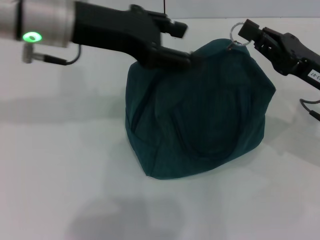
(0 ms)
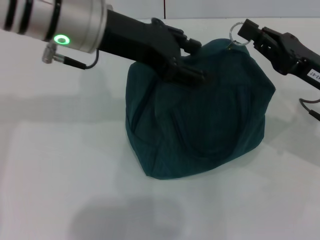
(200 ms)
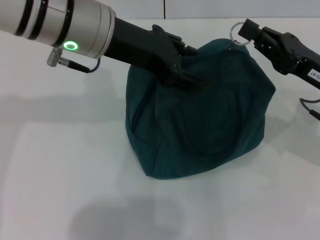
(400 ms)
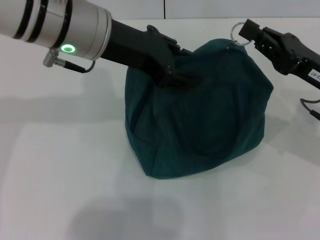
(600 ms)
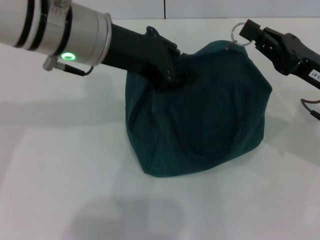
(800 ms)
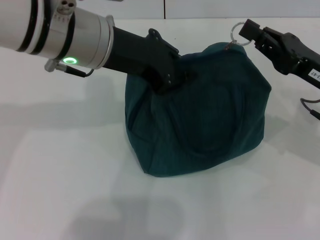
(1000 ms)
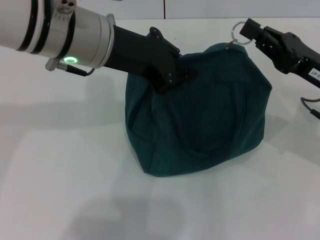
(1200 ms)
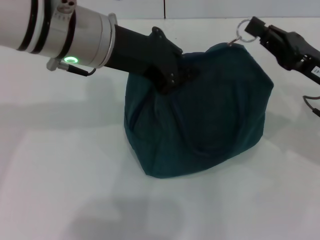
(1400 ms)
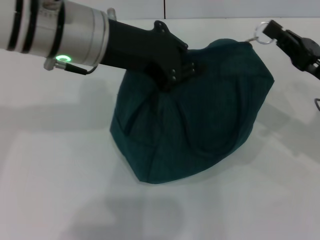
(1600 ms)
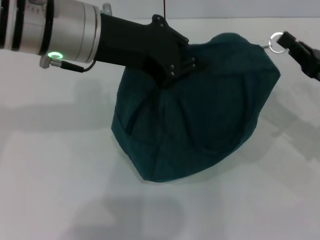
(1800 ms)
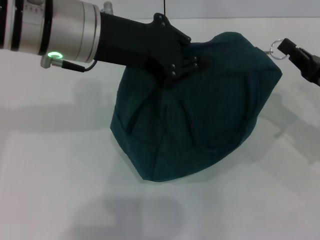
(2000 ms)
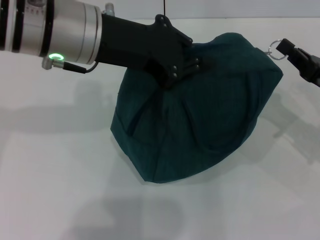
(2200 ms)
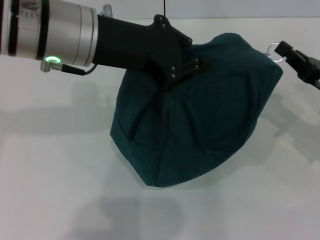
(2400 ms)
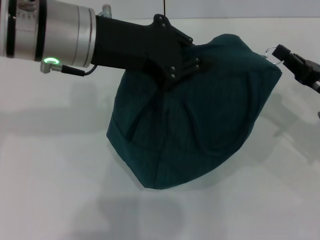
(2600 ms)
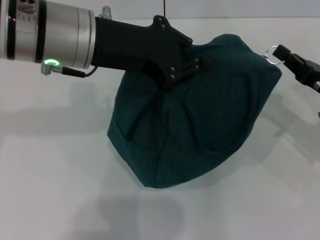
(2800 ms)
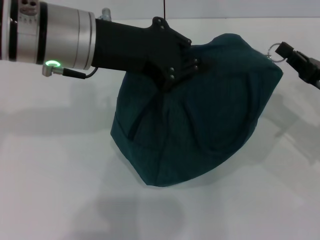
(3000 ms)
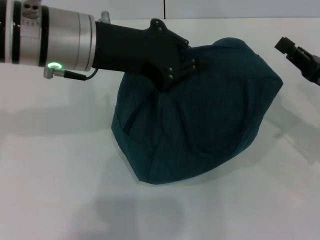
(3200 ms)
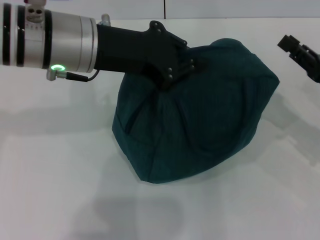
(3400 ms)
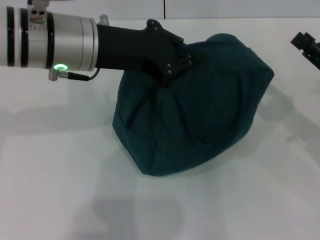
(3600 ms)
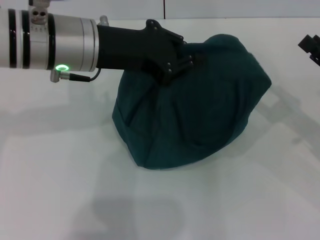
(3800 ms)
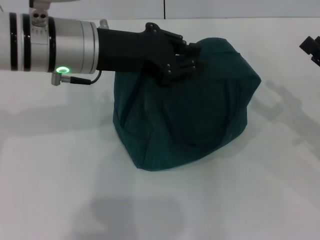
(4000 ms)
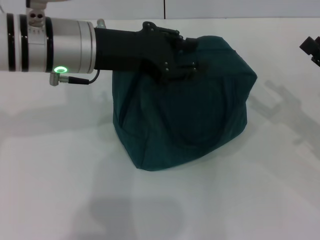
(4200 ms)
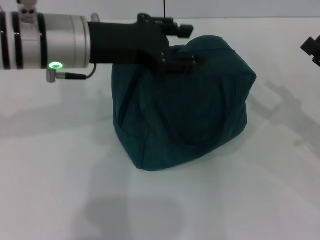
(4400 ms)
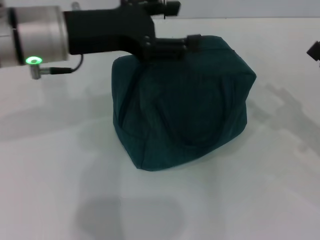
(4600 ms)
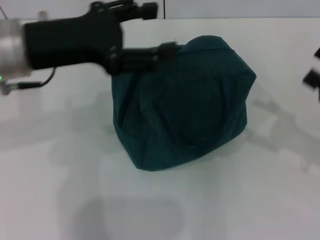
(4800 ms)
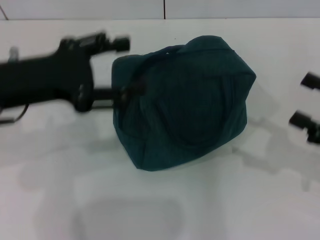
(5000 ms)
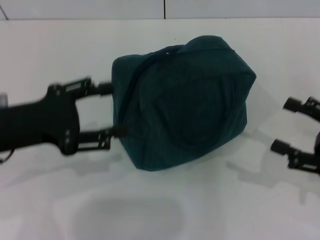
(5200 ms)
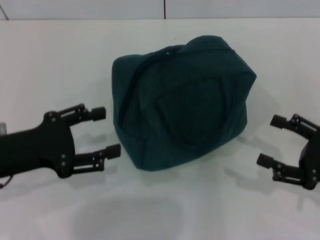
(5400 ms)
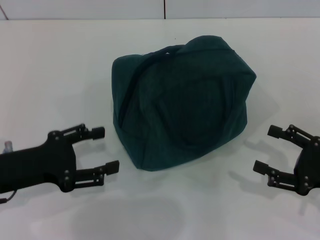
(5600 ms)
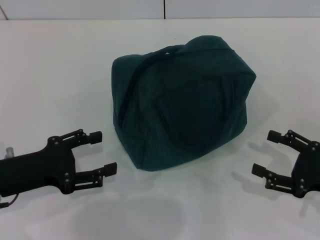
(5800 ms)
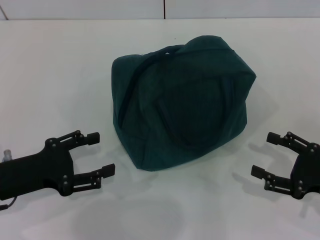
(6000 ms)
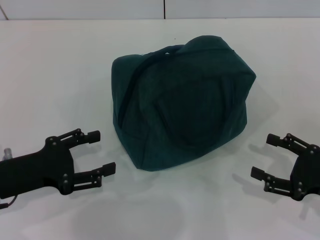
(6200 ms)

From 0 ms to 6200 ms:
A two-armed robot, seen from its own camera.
Step, from 0 ms to 3000 ms: Zip up the lunch bag with your right hand.
Step, from 3200 ms to 4600 ms: Hold the lunch bag with your left hand.
From 0 ms to 1600 ms: The left gripper closes.
From 1600 ms to 3200 ms: The grippers move only a little.
From 3200 ms to 4600 ms: The left gripper opens its fingers. The right gripper moves about 5 cm, and opens its fingers.
From 4600 ms to 6200 ms: The left gripper is displaced downward, backward and to the left by about 20 cm, while the right gripper shifts approximately 10 cm downward and backward.

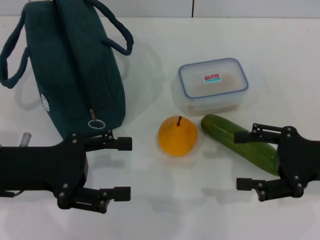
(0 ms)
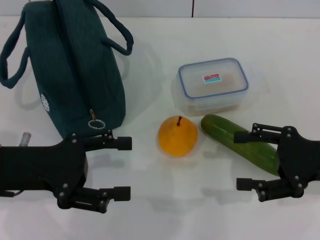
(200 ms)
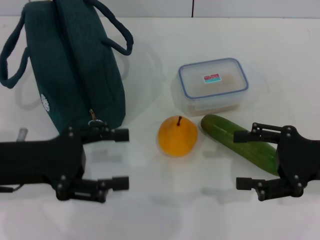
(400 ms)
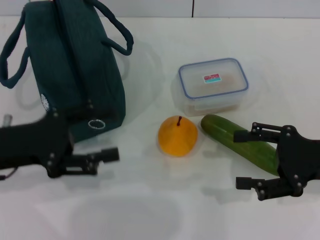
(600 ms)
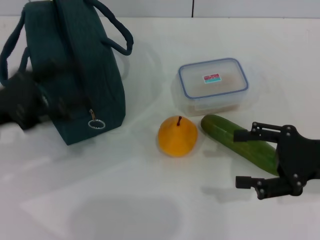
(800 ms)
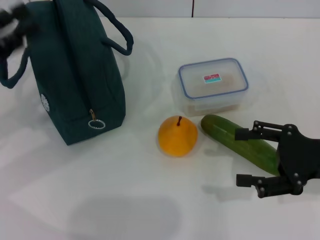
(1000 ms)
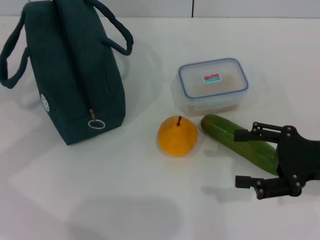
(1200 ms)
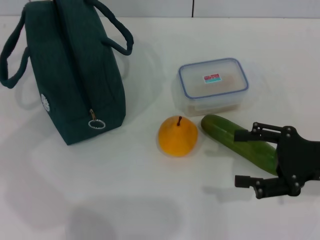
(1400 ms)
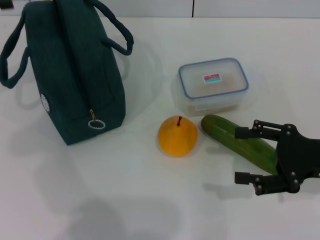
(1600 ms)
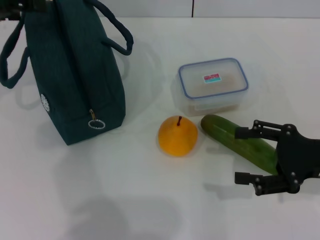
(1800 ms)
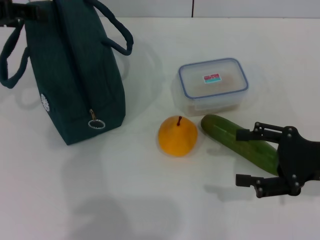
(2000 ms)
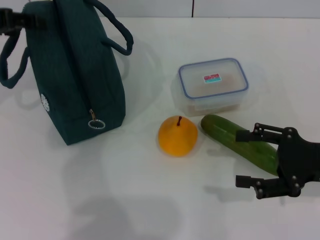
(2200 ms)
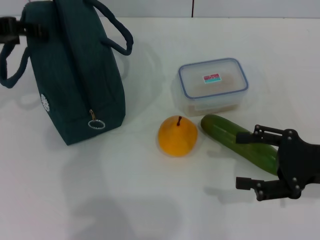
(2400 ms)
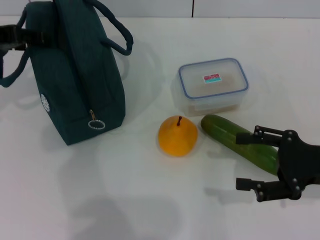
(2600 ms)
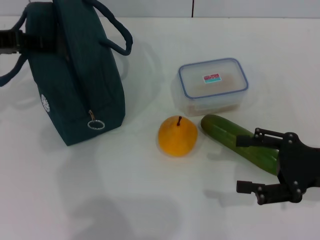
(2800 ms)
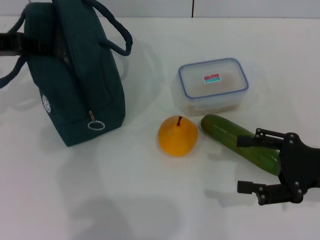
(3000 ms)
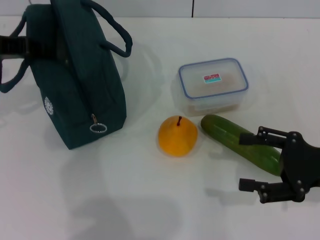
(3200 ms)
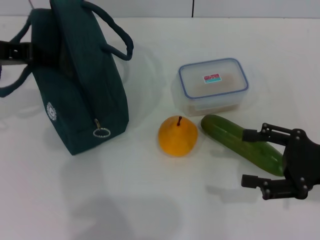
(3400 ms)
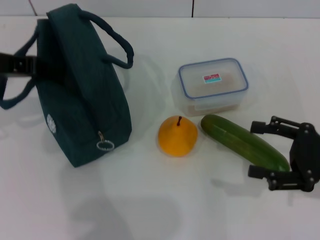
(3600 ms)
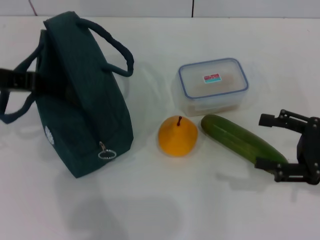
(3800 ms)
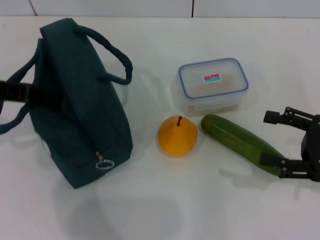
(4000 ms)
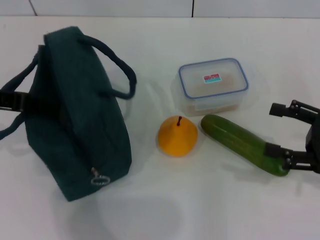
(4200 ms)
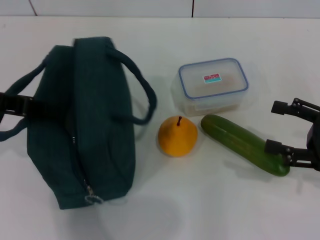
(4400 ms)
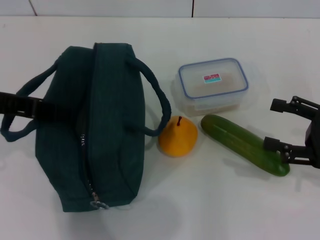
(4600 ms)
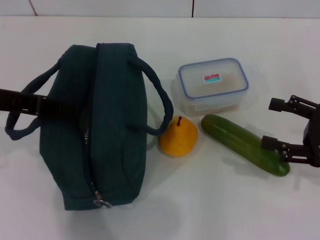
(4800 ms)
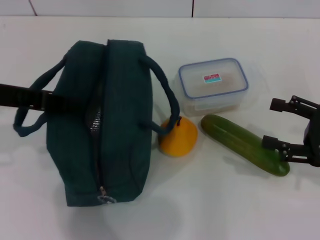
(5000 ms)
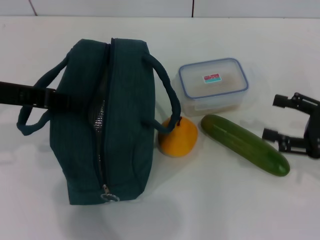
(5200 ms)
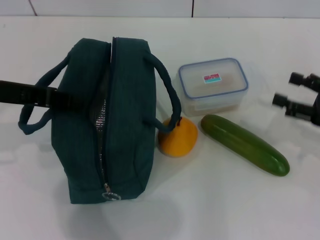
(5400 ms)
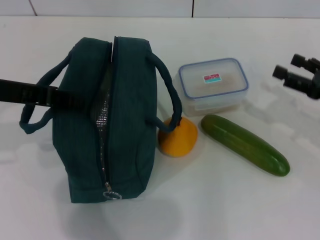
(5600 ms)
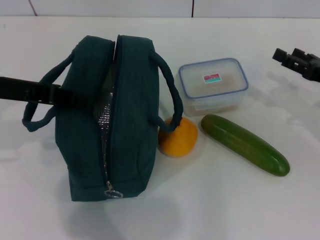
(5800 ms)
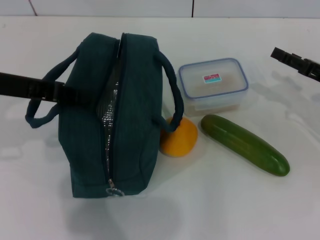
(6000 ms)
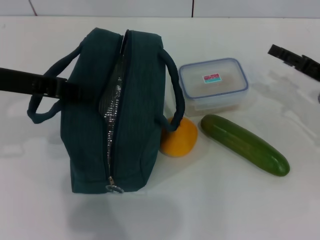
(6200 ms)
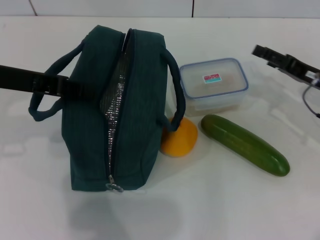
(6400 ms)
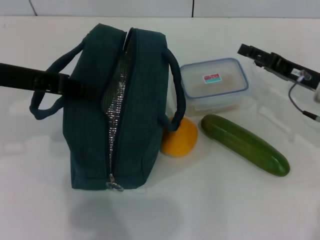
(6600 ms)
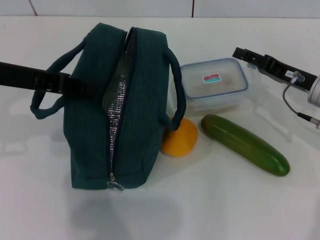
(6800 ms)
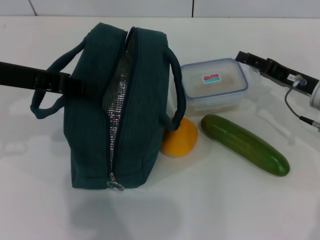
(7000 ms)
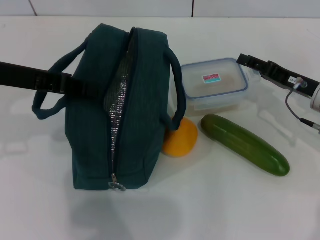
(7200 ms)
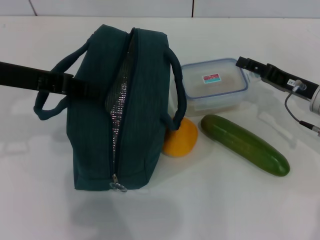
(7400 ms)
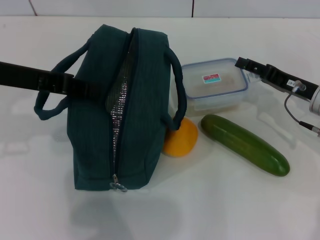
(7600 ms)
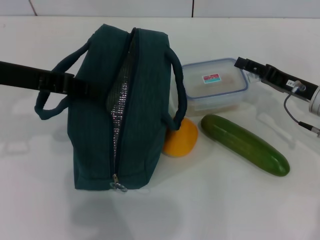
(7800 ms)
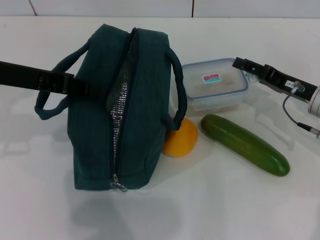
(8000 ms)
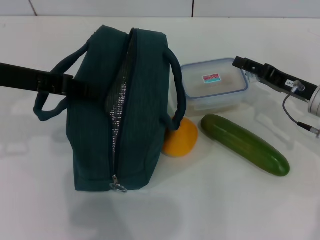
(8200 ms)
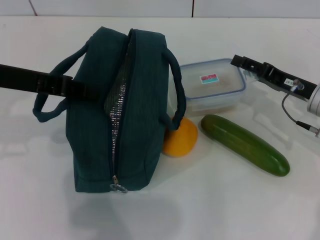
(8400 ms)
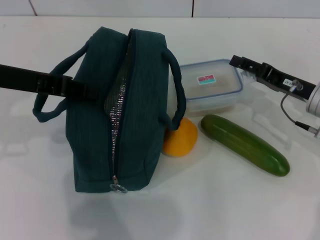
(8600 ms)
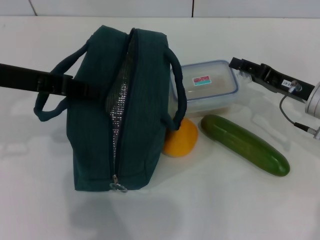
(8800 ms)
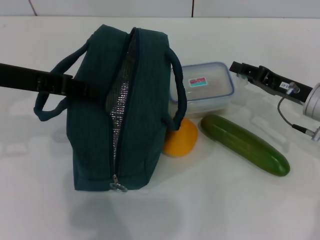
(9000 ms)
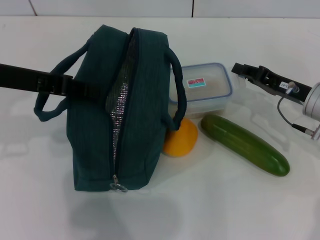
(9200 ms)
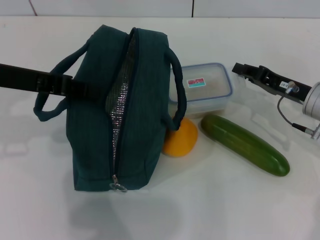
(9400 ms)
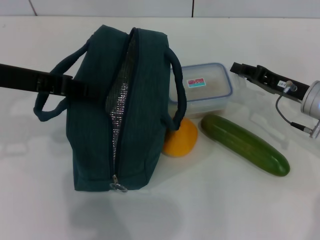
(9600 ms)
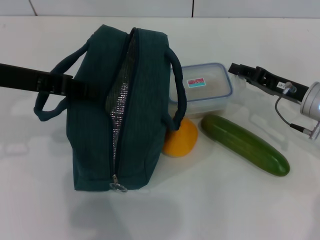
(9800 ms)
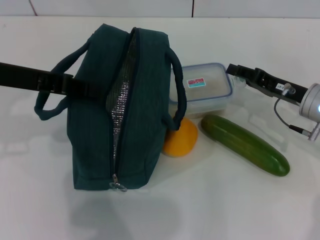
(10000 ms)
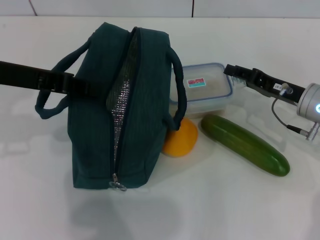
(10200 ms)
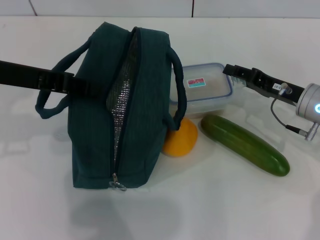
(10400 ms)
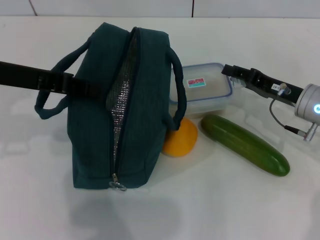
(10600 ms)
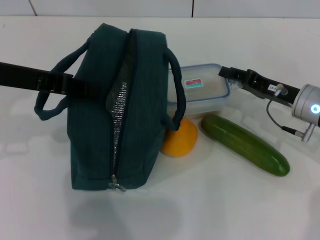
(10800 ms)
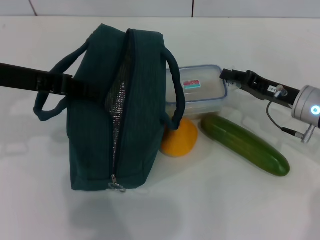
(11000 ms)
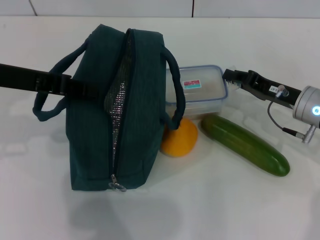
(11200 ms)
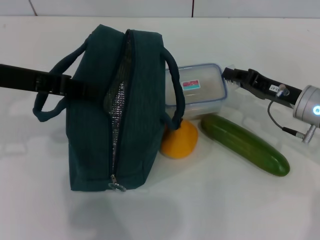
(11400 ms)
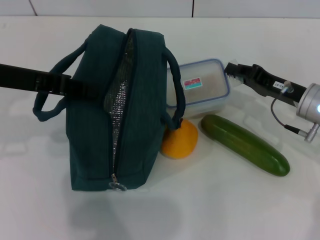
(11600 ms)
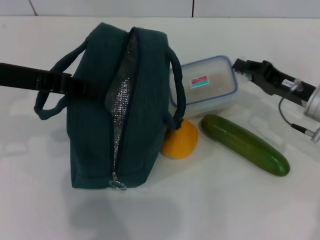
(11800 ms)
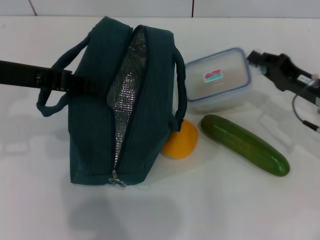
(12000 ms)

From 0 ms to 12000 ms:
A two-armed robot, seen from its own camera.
Step, from 0 ms to 6600 ms: Hold the lunch bag with your left hand.
Step, from 6800 ms to 11400 ms: Pick up the lunch box with your right hand.
From 0 ms to 1600 ms: The left gripper goes roughly 20 cm upward, forward and to the left.
From 1600 ms to 3000 ms: The left gripper closes.
From 3000 ms to 4400 ms: The left gripper shifts some 5 cm backward, and closes up.
From 4400 ms to 6000 ms: The right gripper goes approximately 10 cm forward.
From 6000 ms to 7600 ms: The right gripper heads to the left, covering some 5 cm.
From 7600 ms to 9000 ms: Neither gripper changes place.
From 9000 ms to 10400 ms: The two grippers keep their place.
From 10400 ms to 12000 ms: The right gripper closes up.

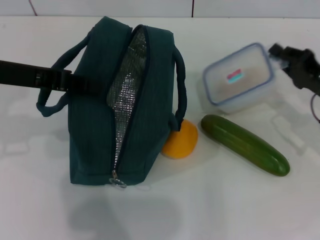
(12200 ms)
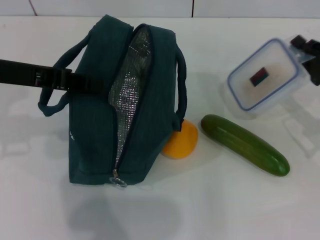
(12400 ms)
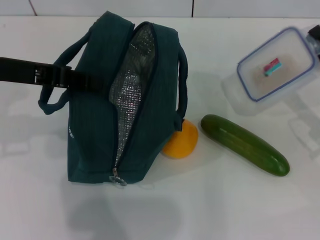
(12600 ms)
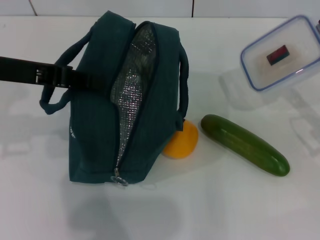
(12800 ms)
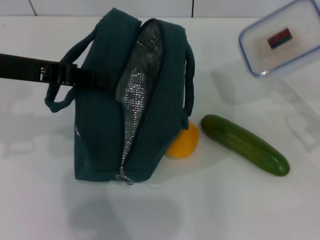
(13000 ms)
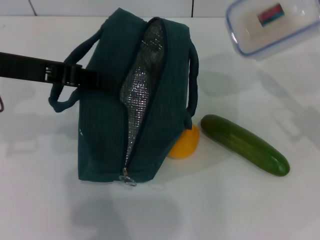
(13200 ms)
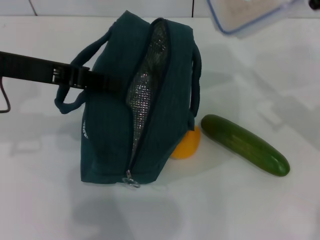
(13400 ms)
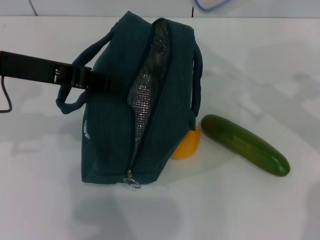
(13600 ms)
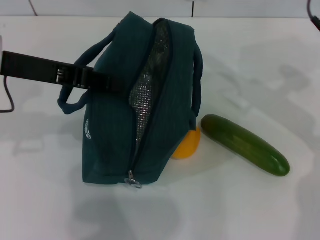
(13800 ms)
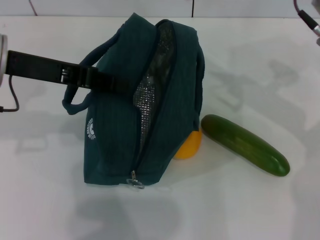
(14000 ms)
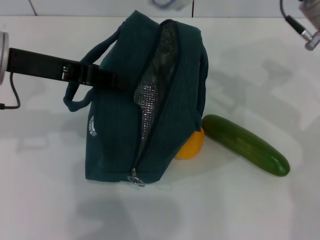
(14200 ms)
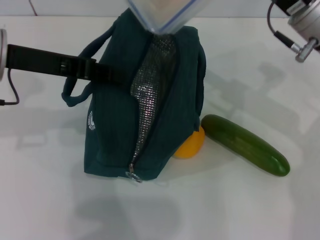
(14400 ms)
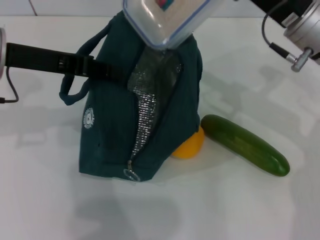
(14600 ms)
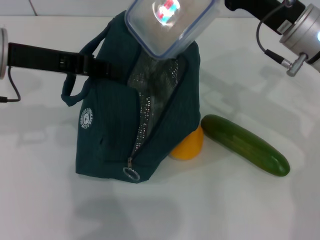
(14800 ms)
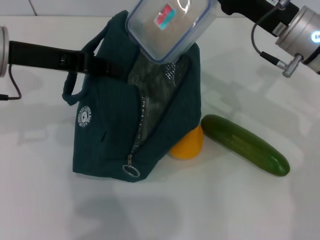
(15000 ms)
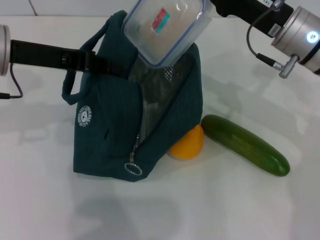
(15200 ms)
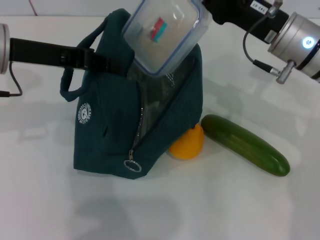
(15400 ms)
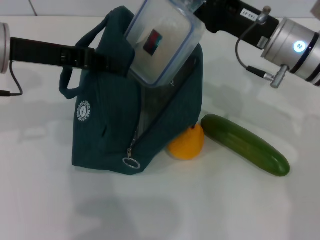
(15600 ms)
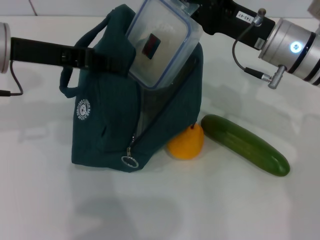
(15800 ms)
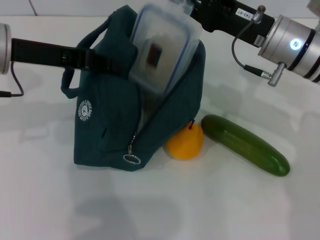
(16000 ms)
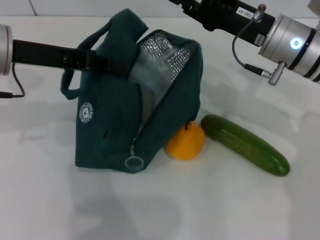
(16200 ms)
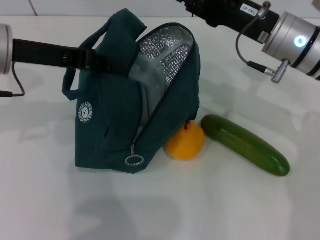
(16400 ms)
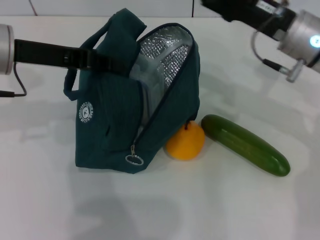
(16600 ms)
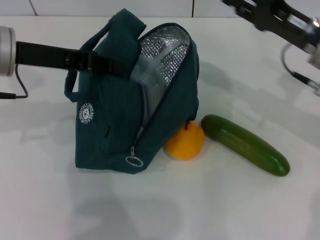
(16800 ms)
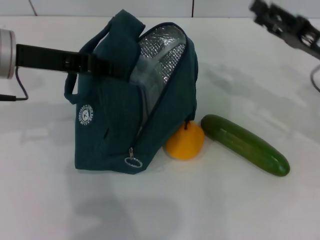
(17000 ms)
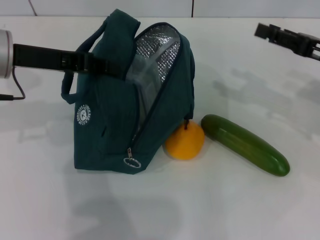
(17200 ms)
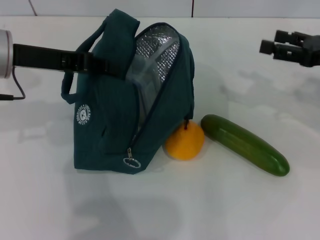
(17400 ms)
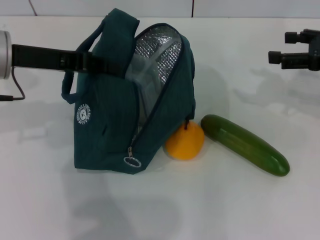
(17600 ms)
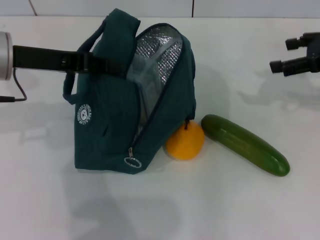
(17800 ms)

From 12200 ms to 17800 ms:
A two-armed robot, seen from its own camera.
Step, from 12200 ms to 16600 ms: Place the lunch box into the lunch bag with your right hand.
From 12200 ms to 13600 ms: The right gripper is displaced upward by approximately 10 cm.
From 13600 ms to 15000 ms: The right gripper moves to the left, roughly 5 cm.
From 15000 ms to 16400 ms: The grippers stay close to where they were, moving slightly.
From 16400 ms to 17800 ms: The right gripper goes approximately 15 cm to the right, and opens up.
